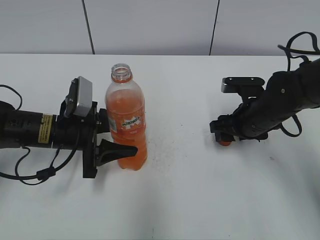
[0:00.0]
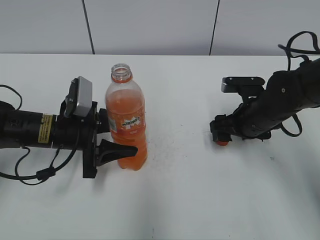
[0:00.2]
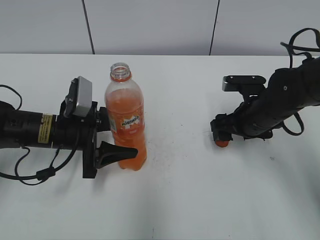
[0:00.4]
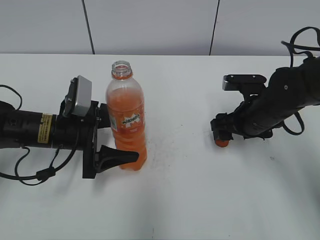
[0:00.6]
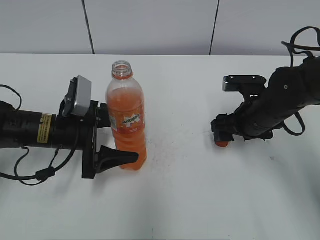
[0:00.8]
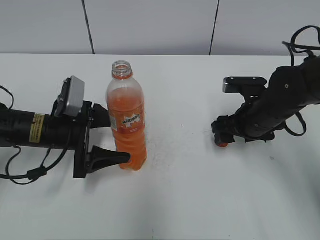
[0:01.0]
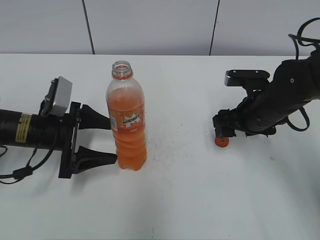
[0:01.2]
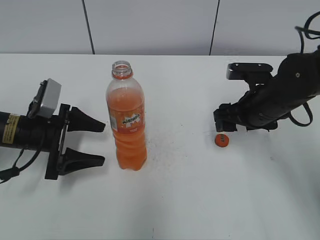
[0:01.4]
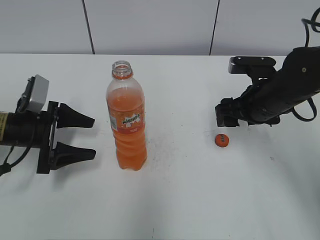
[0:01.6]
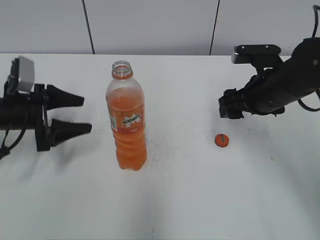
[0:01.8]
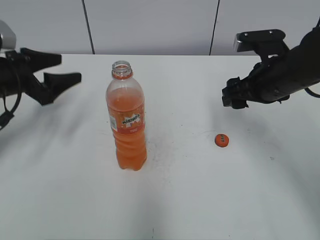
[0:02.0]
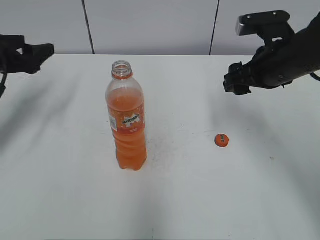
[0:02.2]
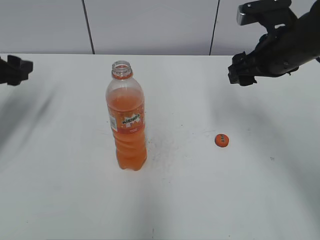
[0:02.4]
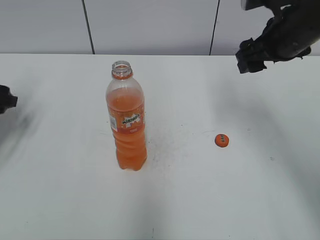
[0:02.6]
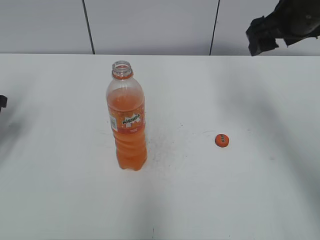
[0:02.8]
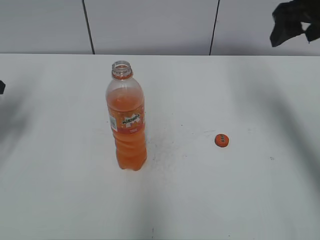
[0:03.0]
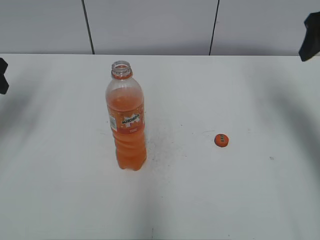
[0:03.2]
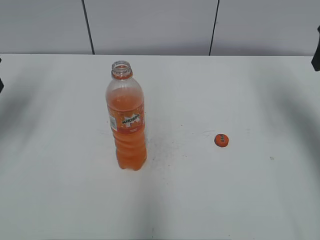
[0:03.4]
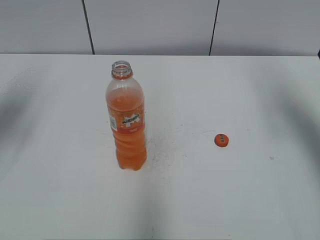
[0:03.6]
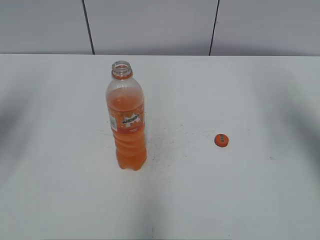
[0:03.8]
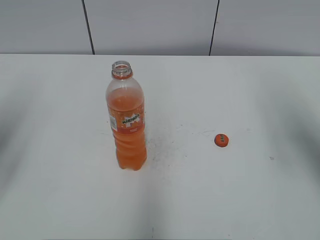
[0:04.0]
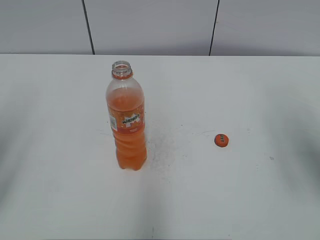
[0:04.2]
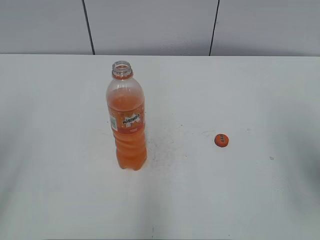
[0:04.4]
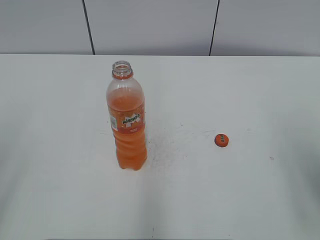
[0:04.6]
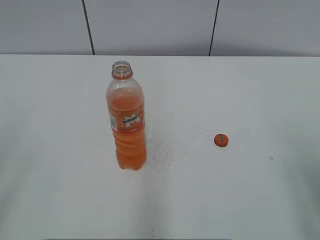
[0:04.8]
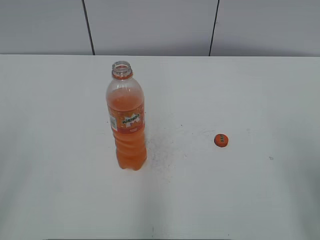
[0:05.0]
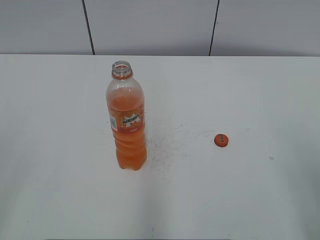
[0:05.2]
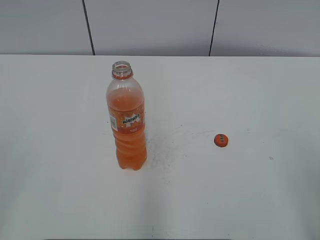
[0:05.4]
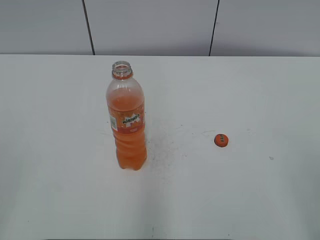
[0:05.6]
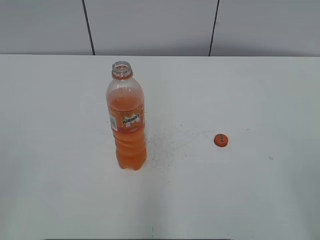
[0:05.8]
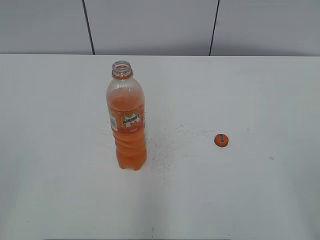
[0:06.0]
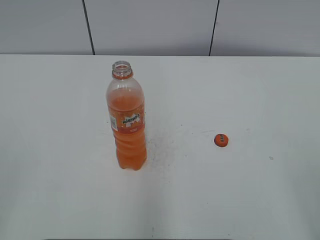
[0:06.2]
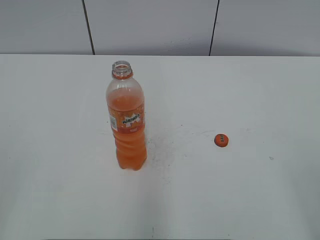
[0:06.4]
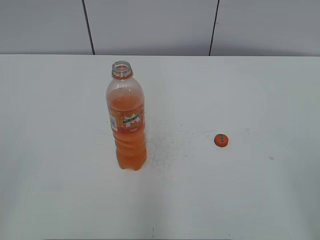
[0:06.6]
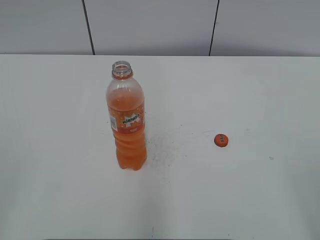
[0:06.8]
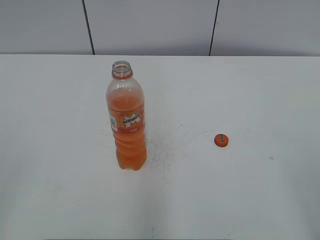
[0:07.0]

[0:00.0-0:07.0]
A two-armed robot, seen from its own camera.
Step, 0:00.4 to 0:00.6: Place the Mirinda with the left hand.
0:00.0 to 0:01.4: The left gripper is displaced to the left by some 5 cm, and opens its fingers; the right gripper opens up.
0:01.4 to 0:02.8: The left gripper travels to the left and upward by roughly 15 cm; the right gripper travels upward by roughly 15 cm.
0:02.8 to 0:04.2: The right gripper heads backward and to the right, covering some 15 cm. Meanwhile the left gripper travels backward and upward by about 20 cm.
0:04.2 to 0:05.6: The right gripper is displaced backward by roughly 15 cm.
